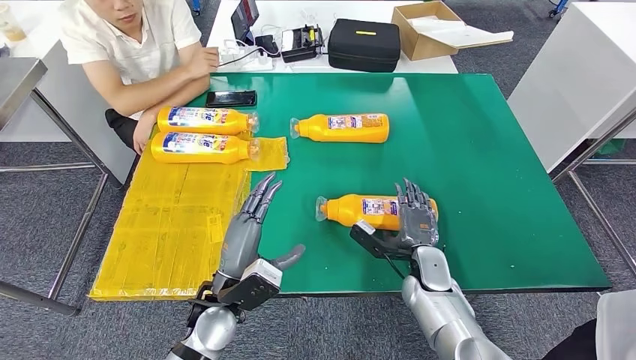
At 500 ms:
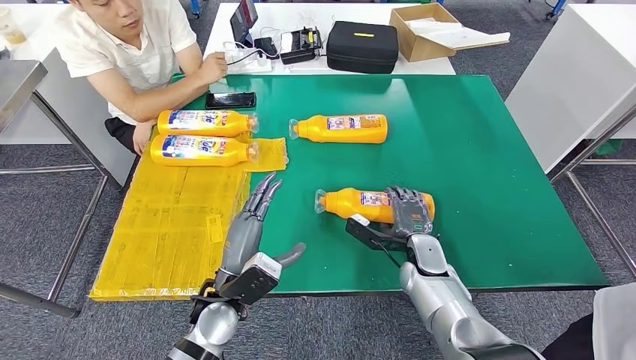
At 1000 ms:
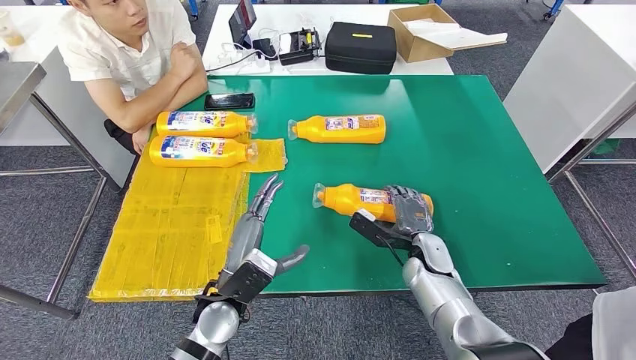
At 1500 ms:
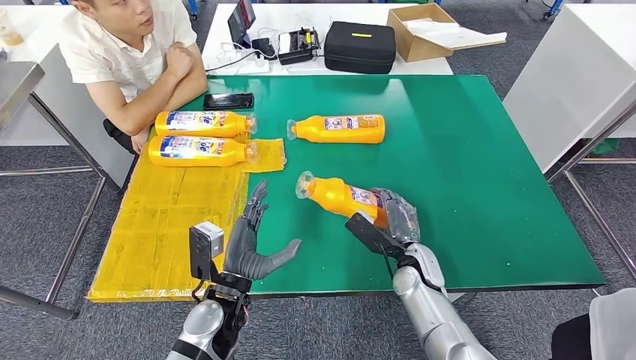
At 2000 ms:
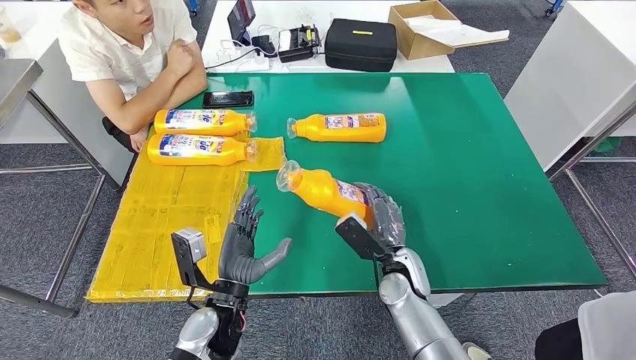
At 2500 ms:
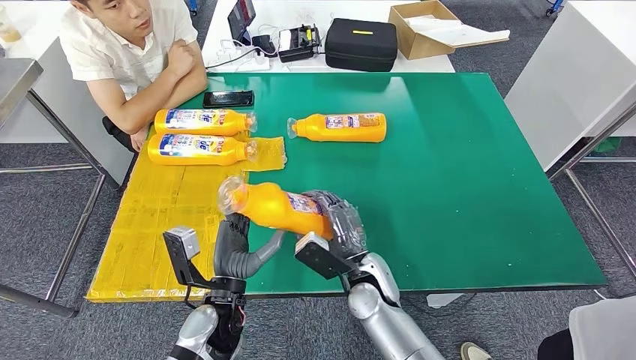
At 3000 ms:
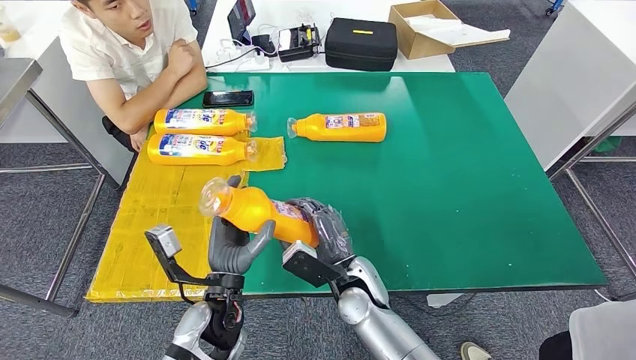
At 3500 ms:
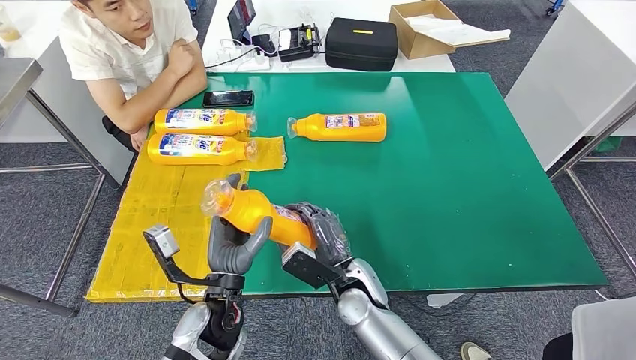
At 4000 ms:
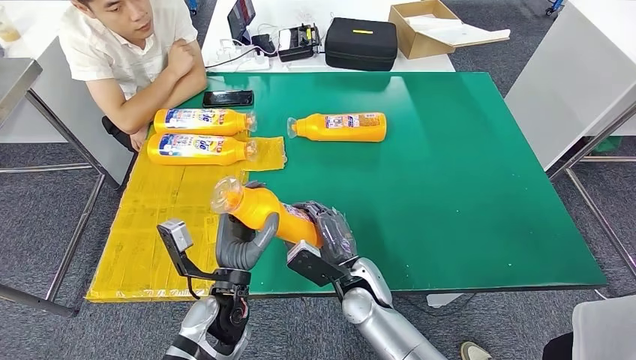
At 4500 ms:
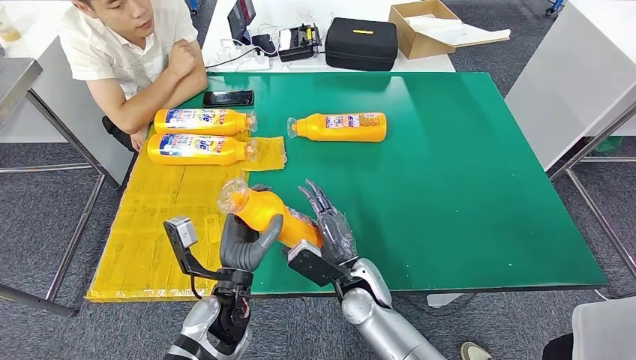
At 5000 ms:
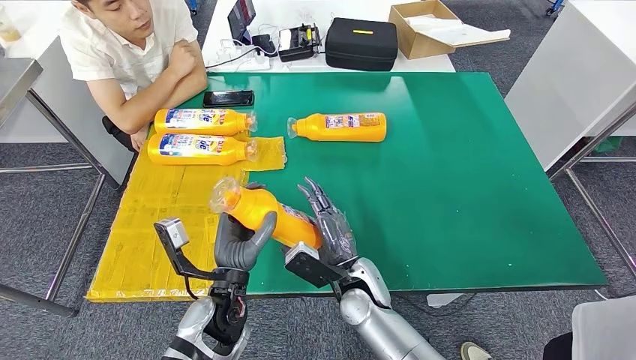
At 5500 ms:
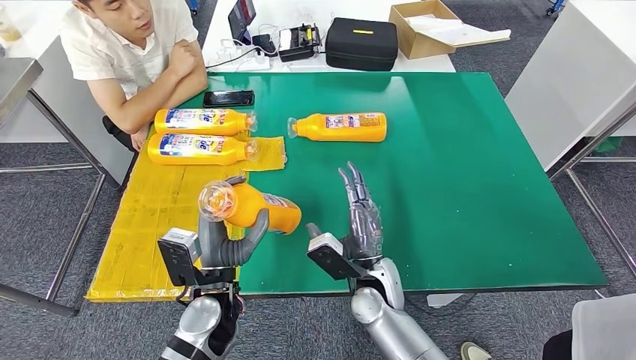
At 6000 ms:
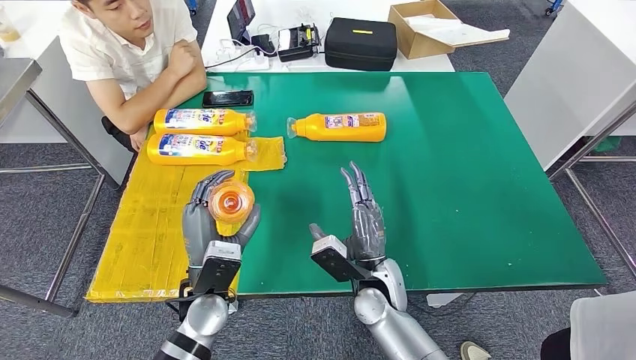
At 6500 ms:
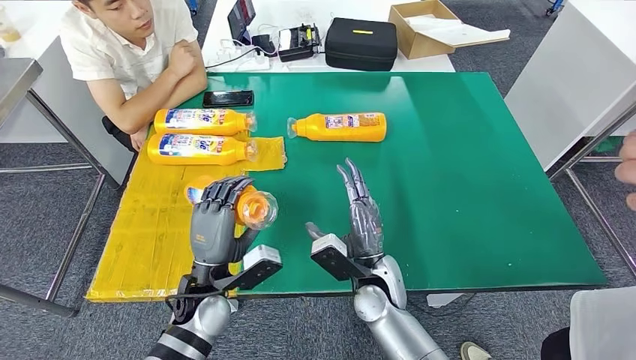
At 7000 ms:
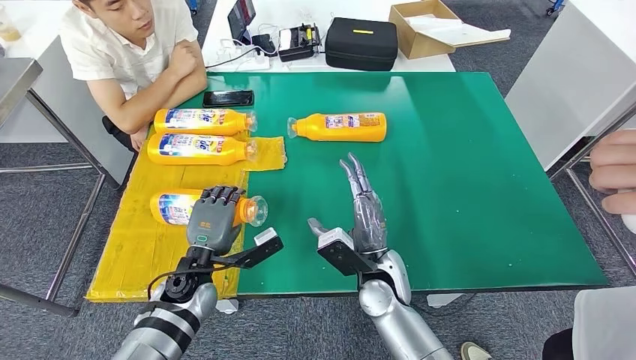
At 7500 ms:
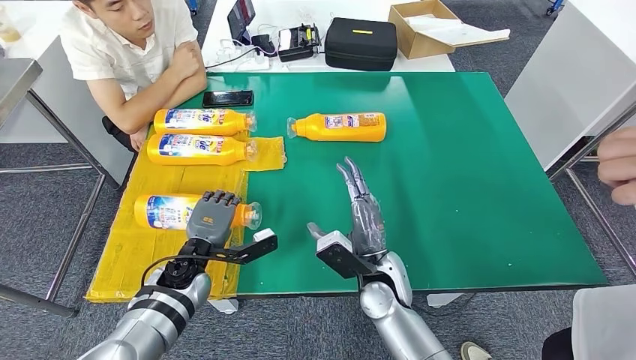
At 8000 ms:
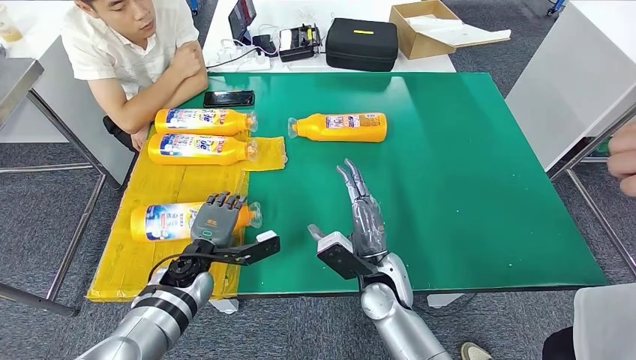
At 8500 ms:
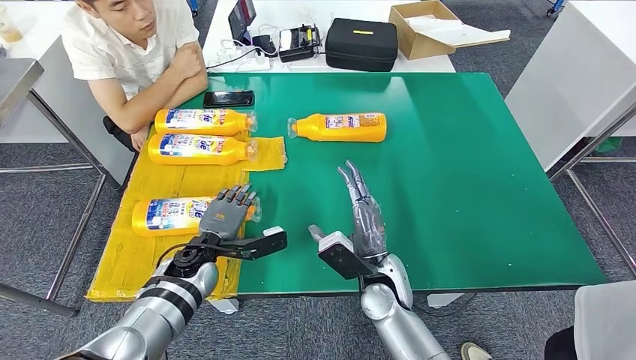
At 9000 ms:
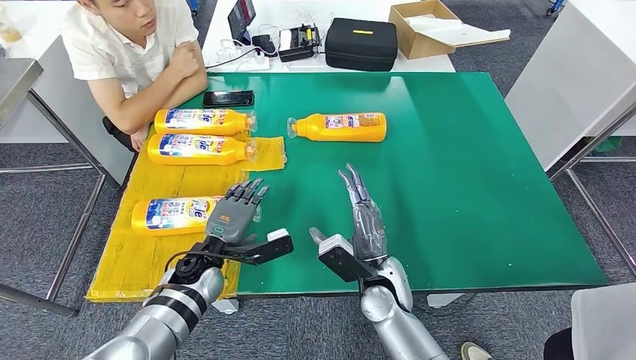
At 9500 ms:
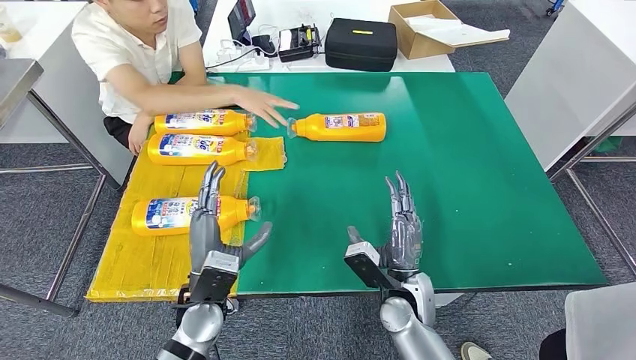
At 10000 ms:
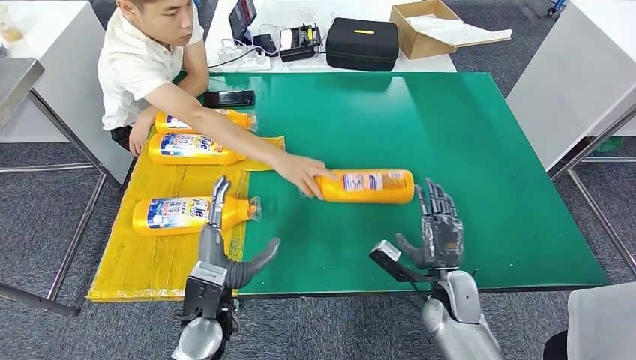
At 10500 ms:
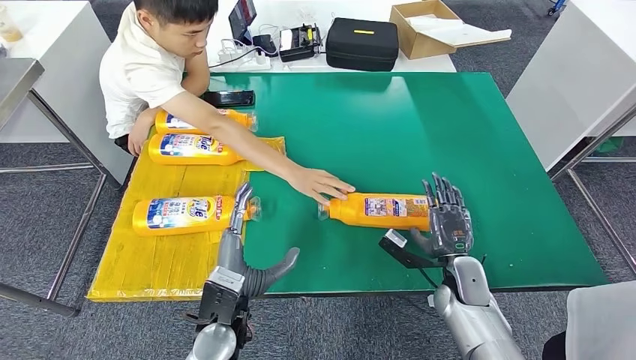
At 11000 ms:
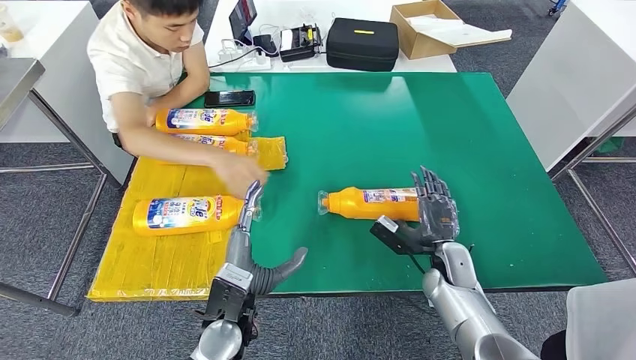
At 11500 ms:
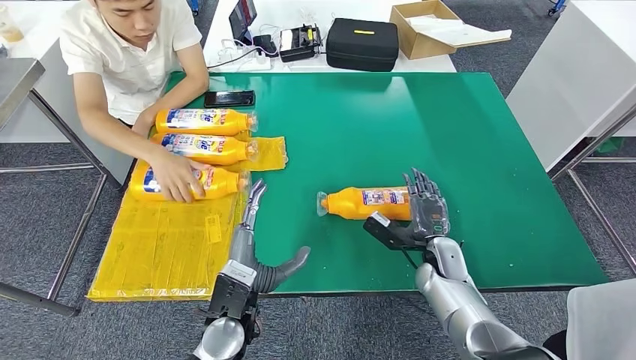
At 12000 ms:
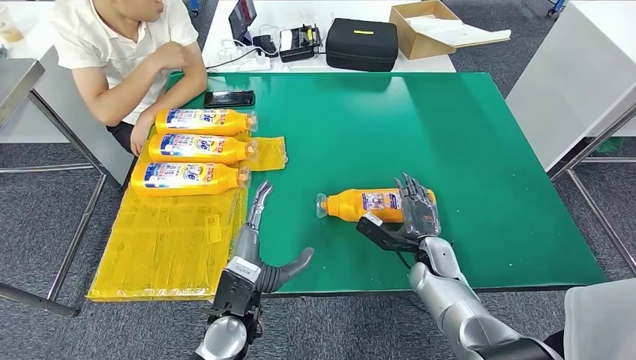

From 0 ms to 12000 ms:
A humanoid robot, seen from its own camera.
Step, from 0 ms to 3500 ms: Pick up the fast-moving consumer goods bottle from the table.
Step, from 4000 ms to 11000 ms: Flip the fast-moving consumer goods bottle to the front side.
From 2000 ms to 4000 ms: The right hand shifts some 10 cm to the left.
From 6000 ms to 8000 ms: The left hand shifts about 10 cm forward, downward and to the left.

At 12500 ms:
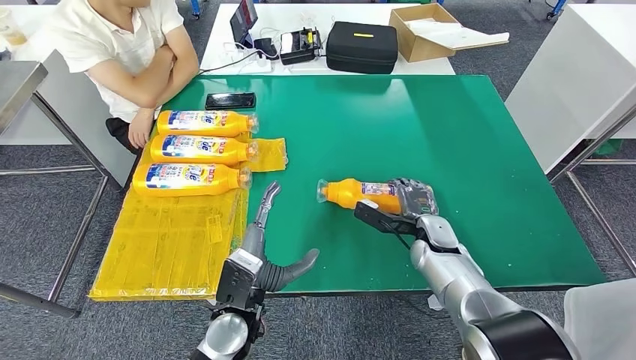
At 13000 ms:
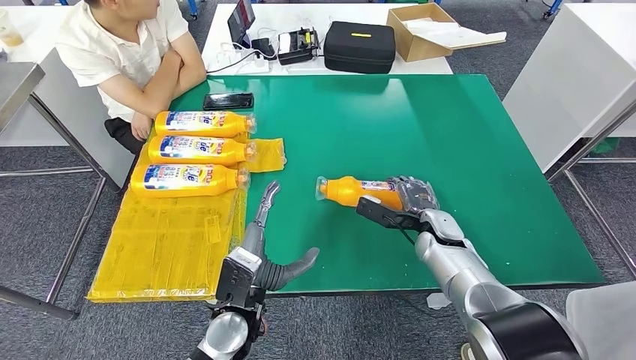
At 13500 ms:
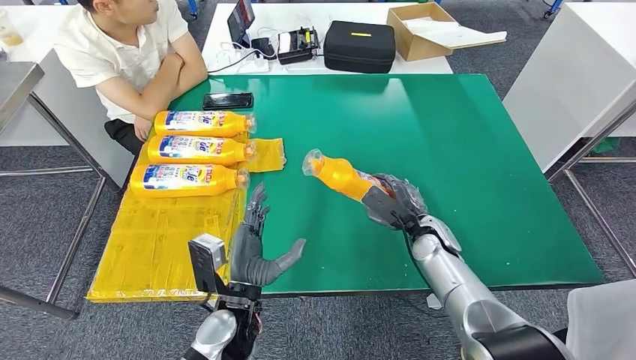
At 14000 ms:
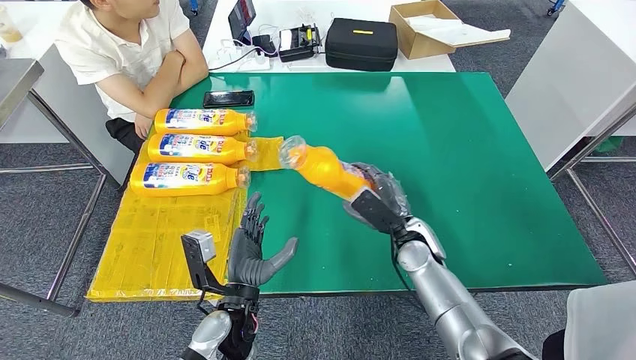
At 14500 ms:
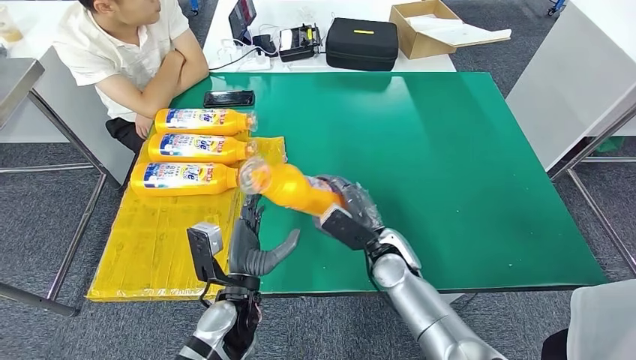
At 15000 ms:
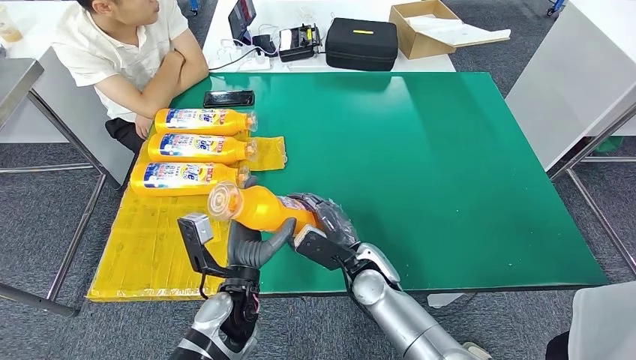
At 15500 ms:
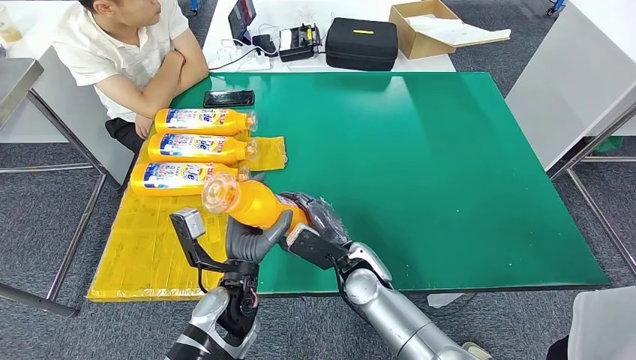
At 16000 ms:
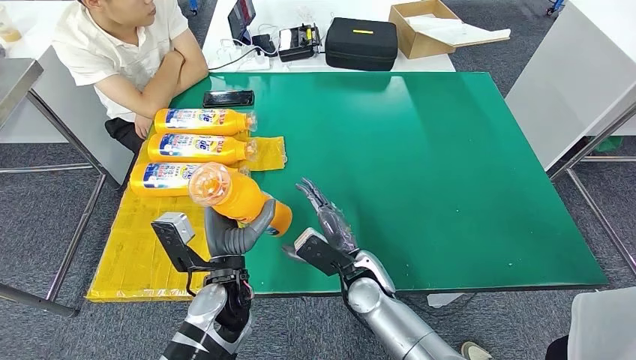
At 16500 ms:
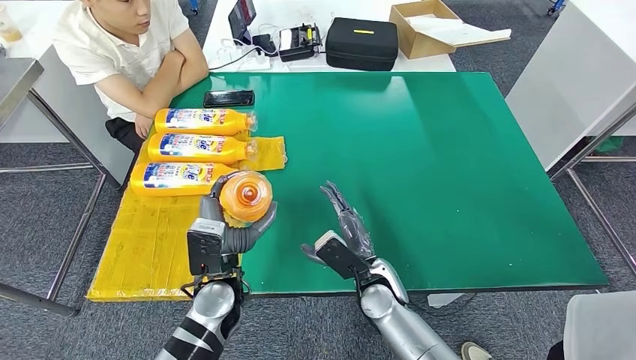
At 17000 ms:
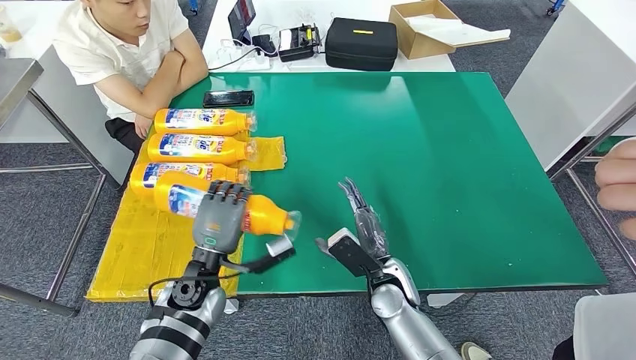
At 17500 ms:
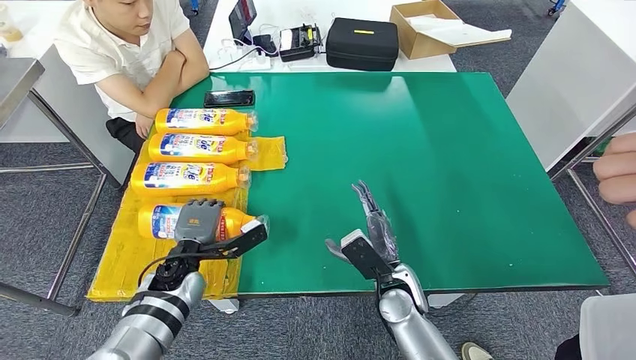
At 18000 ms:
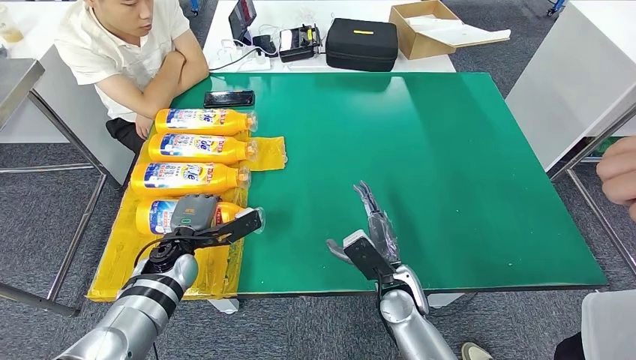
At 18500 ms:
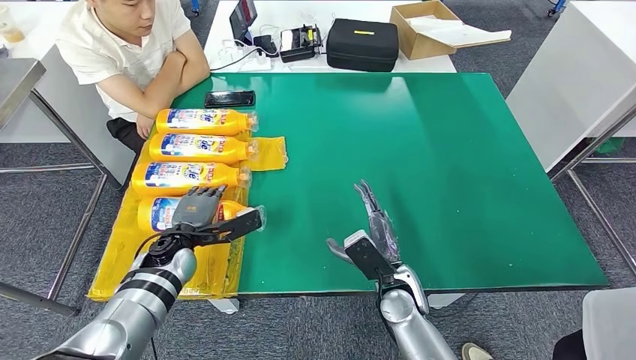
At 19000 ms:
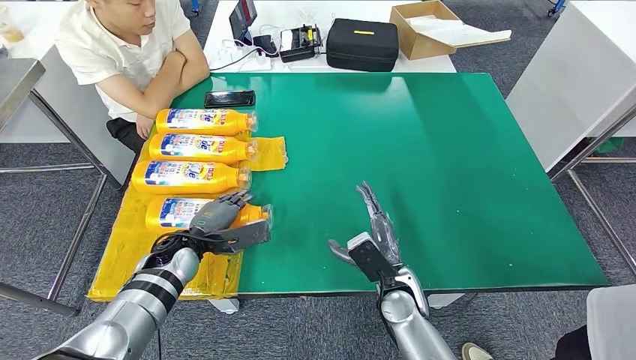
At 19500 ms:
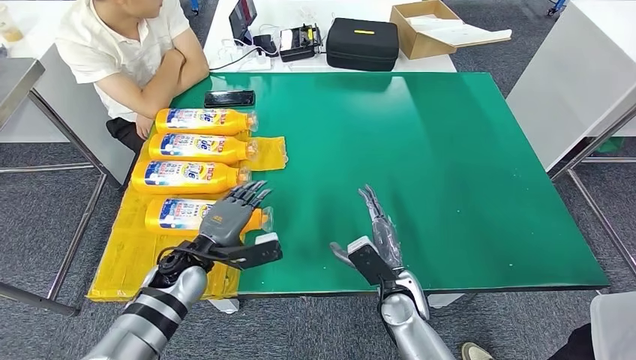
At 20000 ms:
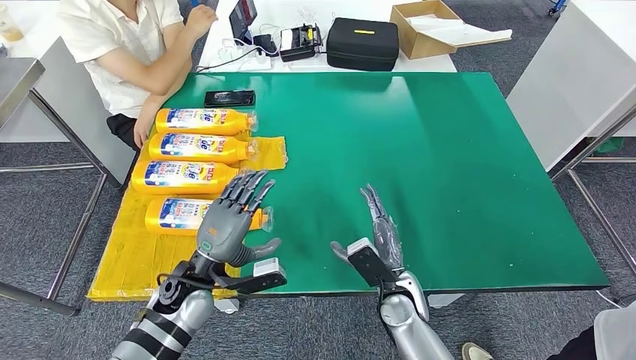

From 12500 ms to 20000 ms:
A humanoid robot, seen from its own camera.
Step, from 12500 ms to 15500 ms: Pick up the fast-moving consumer goods bottle from the table.
Step, from 16000 ms to 20000 ms: Flip the fast-moving consumer goods bottle to the front side.
From 14500 ms to 16500 ms: The right hand moves some 5 cm.
From 16500 ms to 18000 ms: The left hand travels to the left and forward by roughly 15 cm.
From 18000 ms to 20000 ms: The left hand heads backward and to the right, covering roughly 10 cm.
